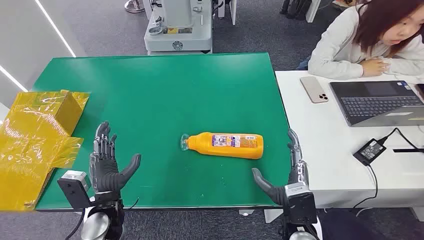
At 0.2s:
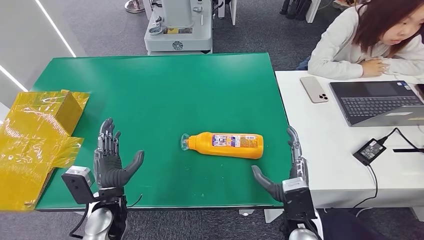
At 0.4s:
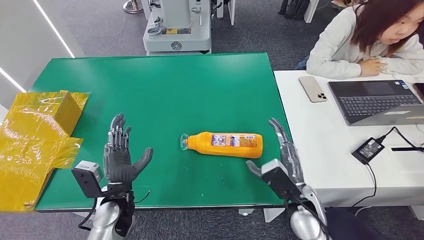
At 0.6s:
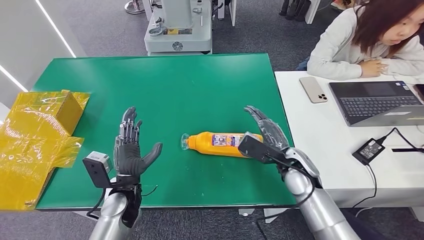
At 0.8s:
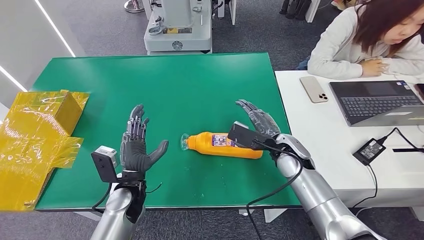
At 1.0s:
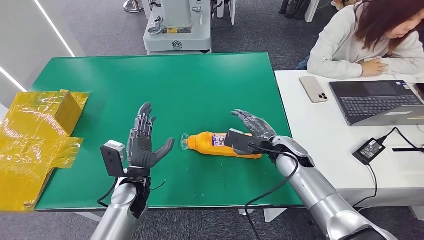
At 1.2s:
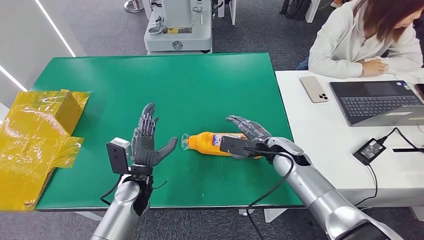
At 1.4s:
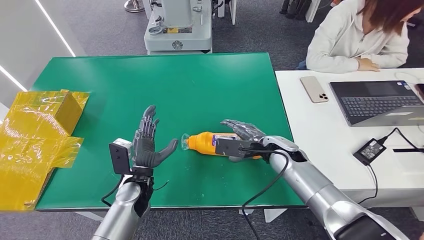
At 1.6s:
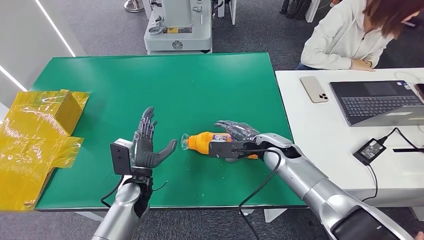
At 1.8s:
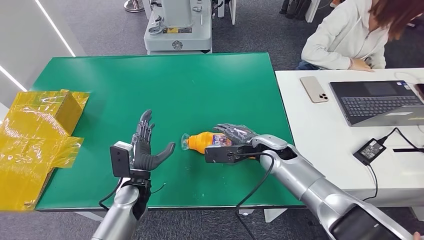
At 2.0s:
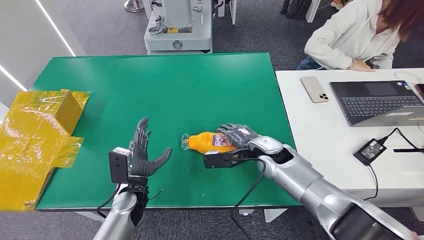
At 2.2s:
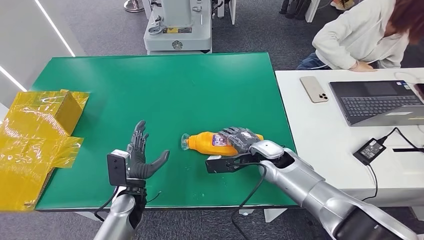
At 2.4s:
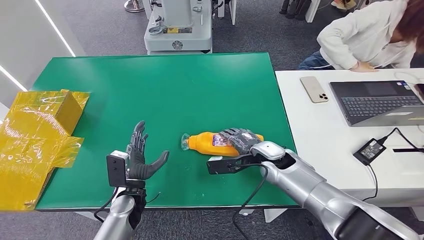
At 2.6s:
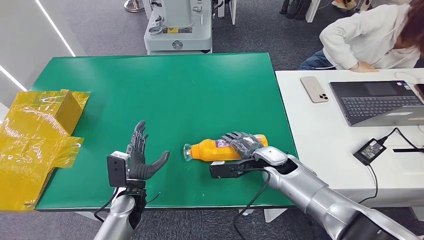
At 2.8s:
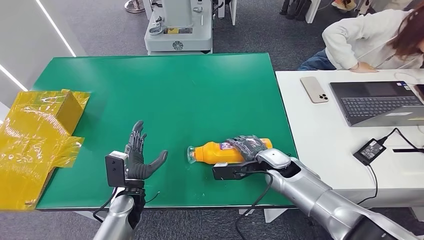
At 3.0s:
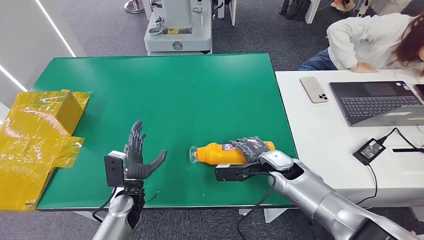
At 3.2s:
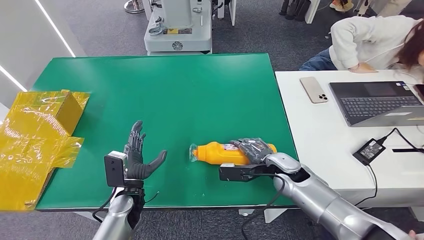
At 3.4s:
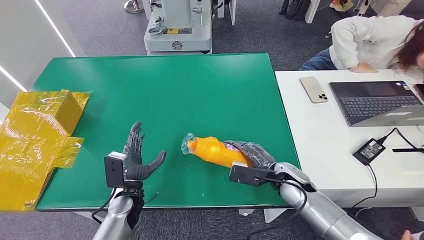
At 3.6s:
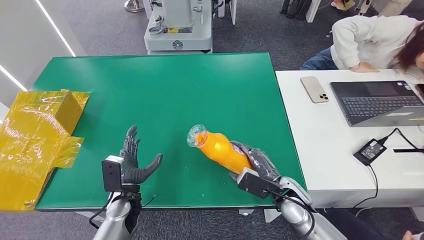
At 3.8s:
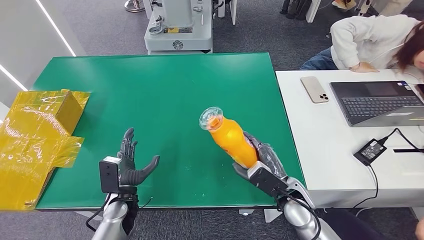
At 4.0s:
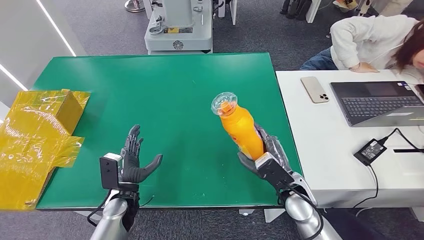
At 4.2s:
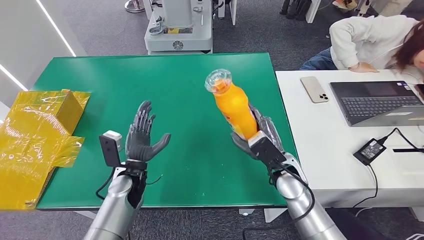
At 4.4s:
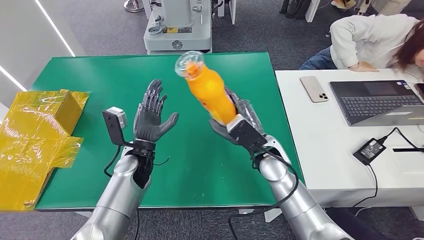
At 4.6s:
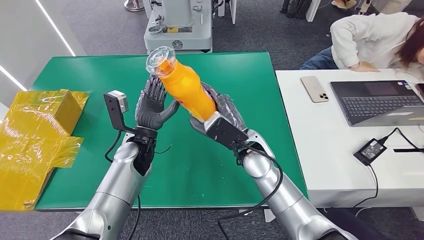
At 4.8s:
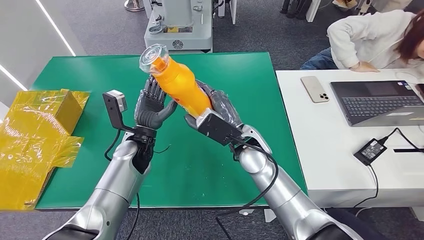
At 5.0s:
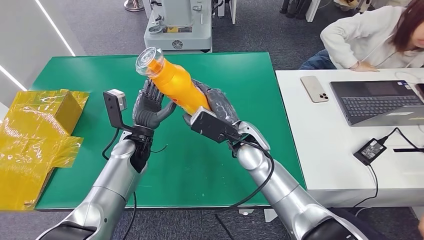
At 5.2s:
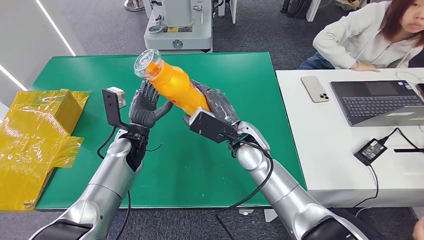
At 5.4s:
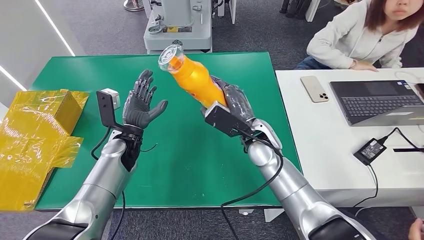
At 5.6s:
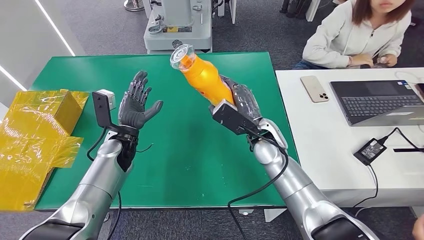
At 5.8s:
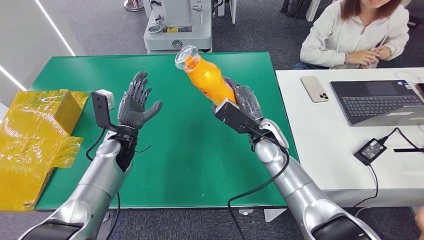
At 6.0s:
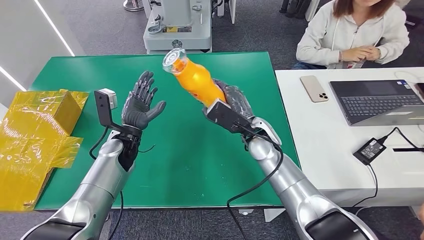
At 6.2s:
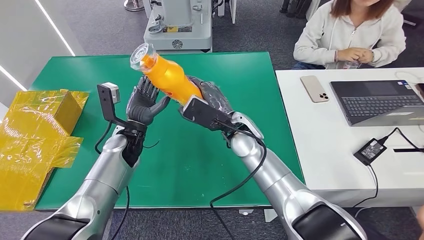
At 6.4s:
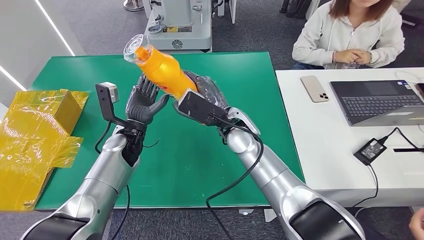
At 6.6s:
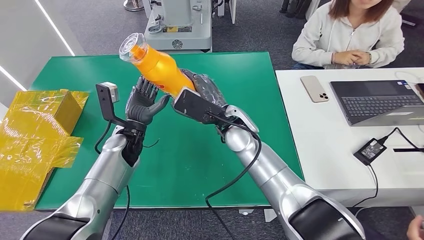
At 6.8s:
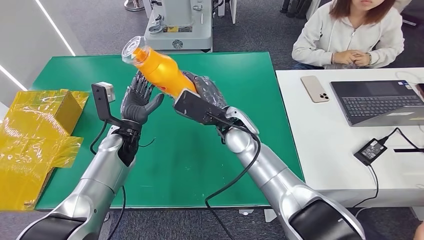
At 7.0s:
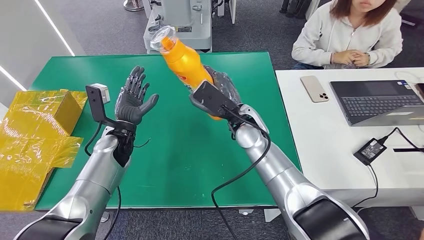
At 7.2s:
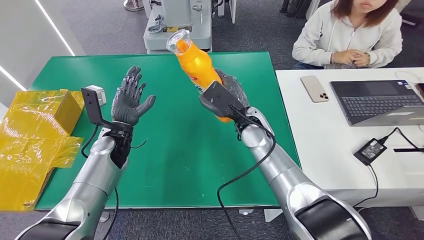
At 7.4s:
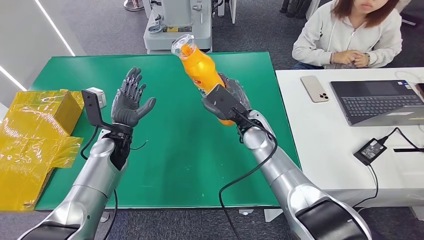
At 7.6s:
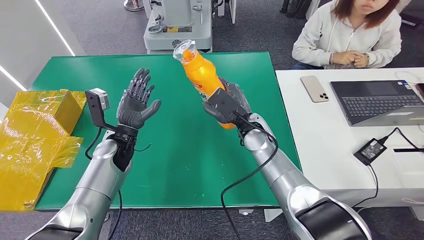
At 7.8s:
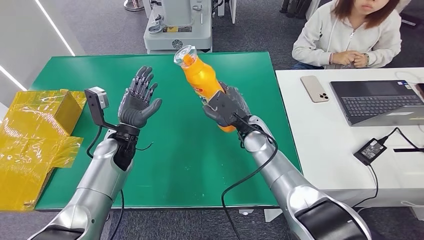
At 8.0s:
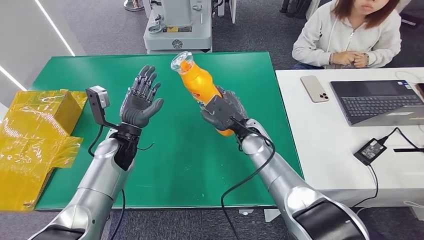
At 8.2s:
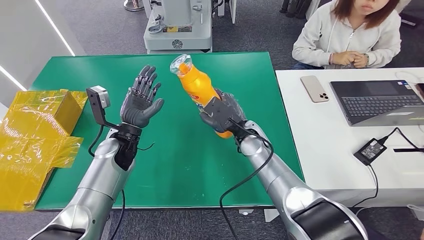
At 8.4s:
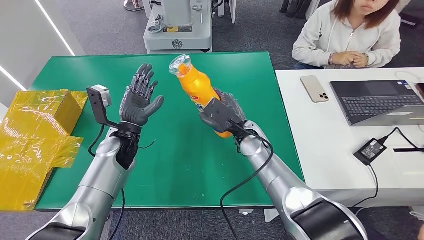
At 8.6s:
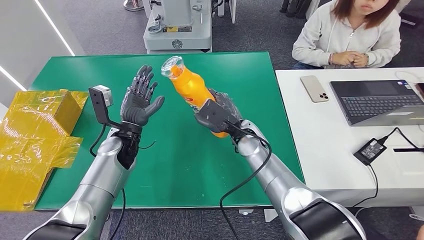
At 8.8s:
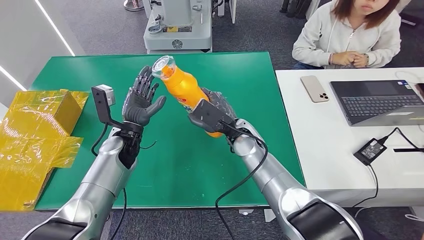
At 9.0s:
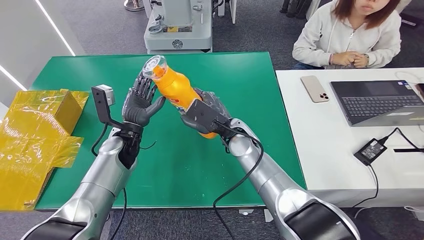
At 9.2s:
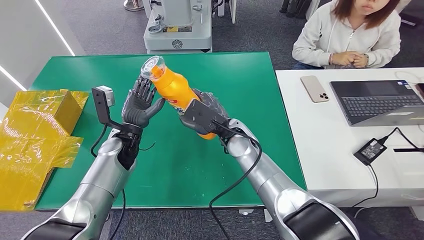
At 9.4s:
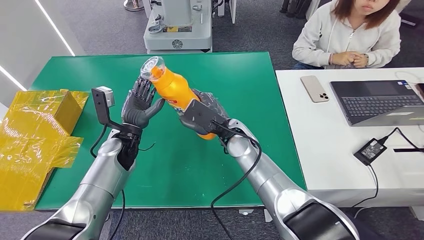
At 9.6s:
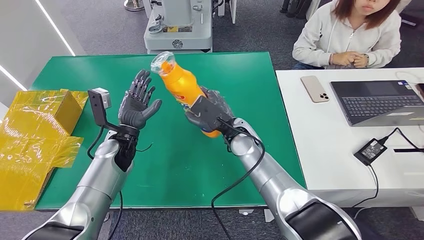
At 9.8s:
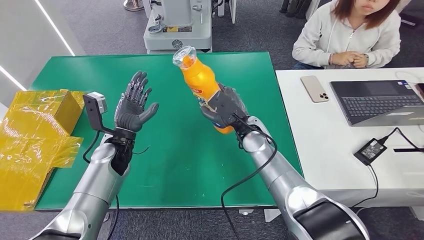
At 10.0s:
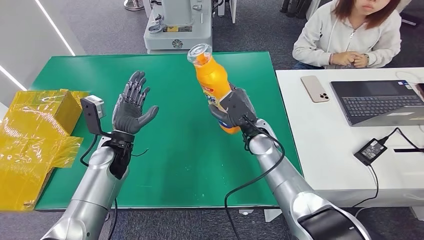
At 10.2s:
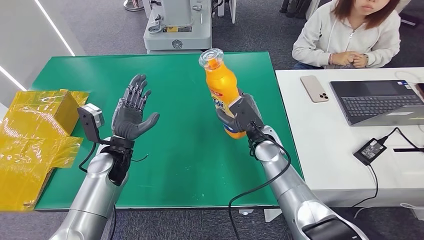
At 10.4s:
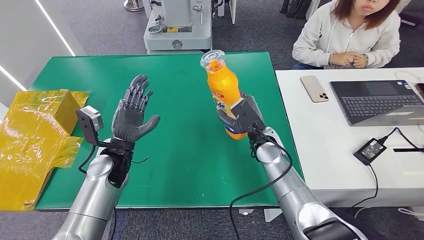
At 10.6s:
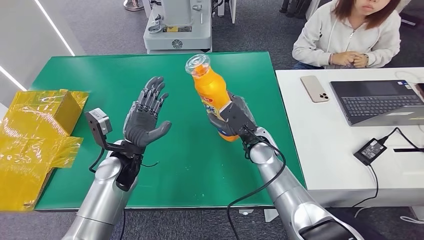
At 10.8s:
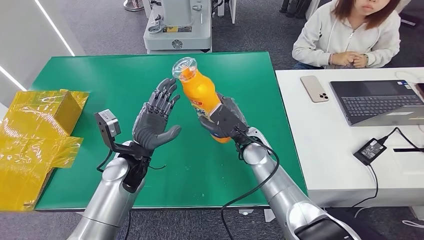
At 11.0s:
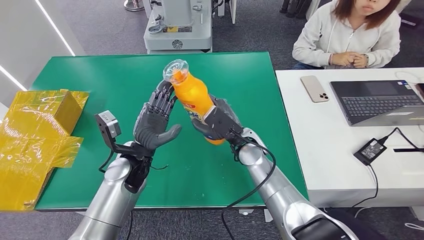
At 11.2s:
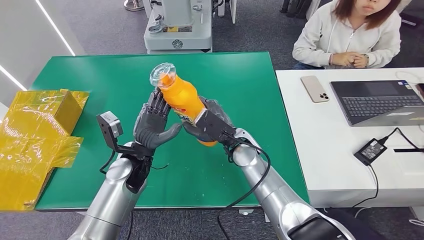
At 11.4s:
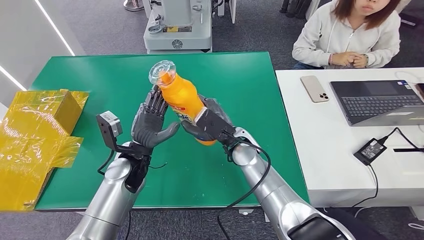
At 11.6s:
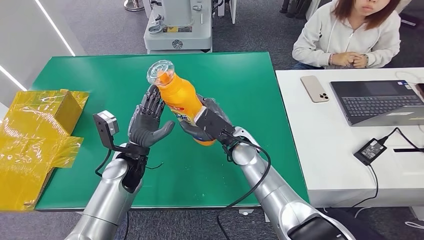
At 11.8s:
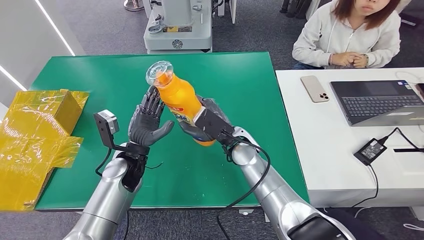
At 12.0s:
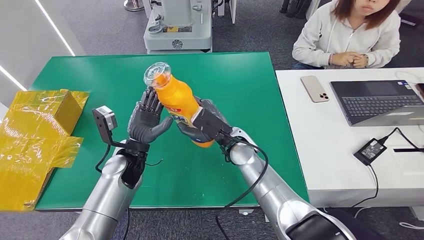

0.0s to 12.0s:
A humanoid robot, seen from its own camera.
Step, 0.0s to 4.4s: Pick up the bottle from the table.
1.6s to 3.0s: The right hand ends up some 5 cm from where it was.
7.6s to 9.0s: The hands move only a little.
9.0s to 10.4s: The right hand moves to the right, roughly 5 cm.
10.4s to 12.0s: The right hand travels to the left by approximately 5 cm.

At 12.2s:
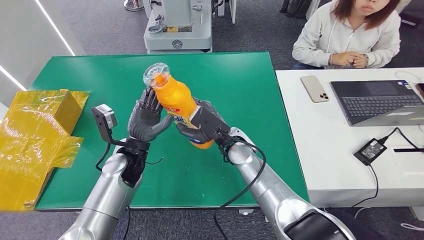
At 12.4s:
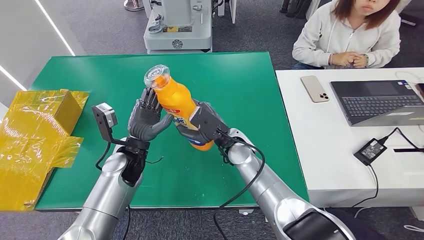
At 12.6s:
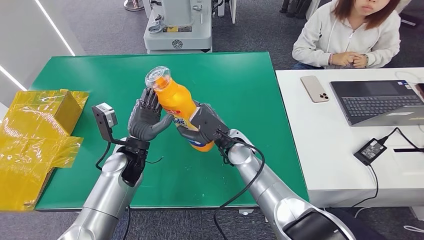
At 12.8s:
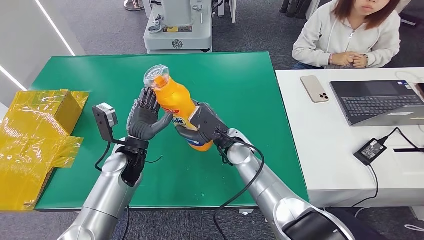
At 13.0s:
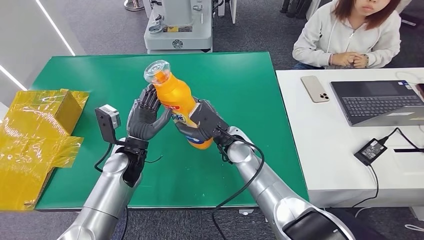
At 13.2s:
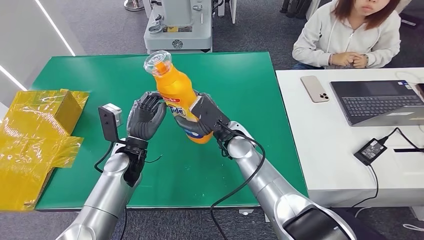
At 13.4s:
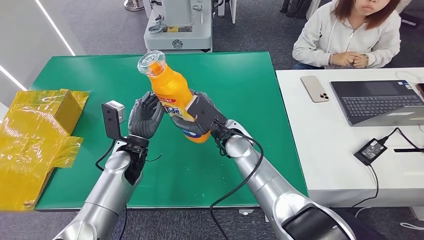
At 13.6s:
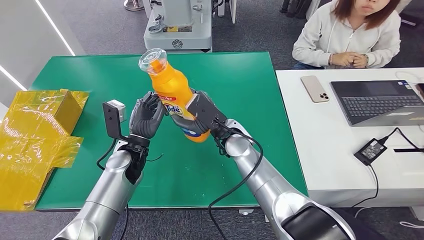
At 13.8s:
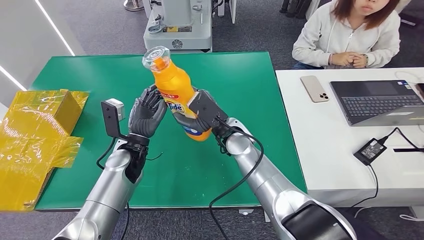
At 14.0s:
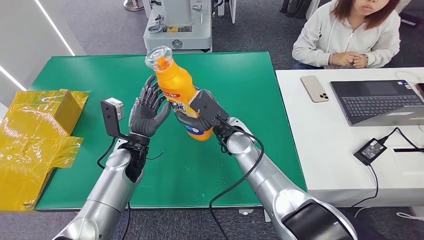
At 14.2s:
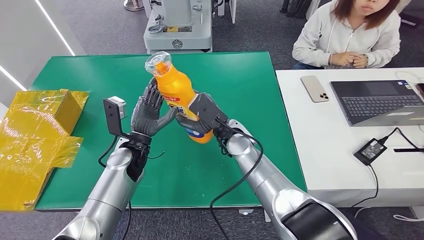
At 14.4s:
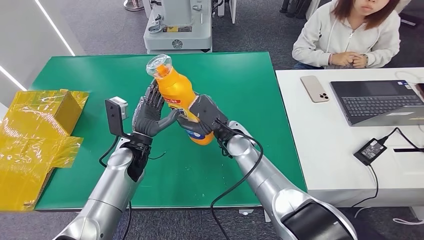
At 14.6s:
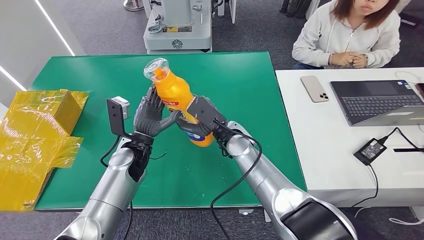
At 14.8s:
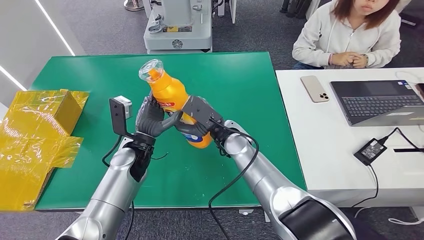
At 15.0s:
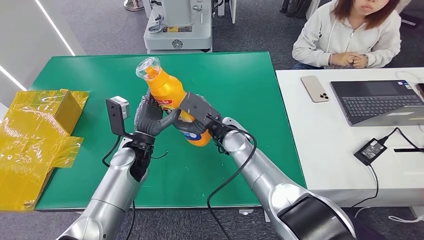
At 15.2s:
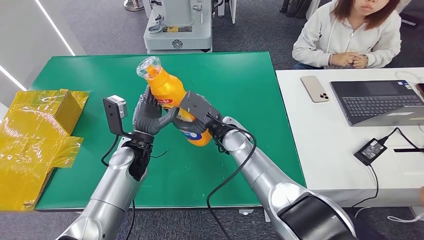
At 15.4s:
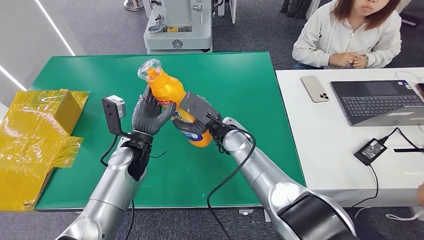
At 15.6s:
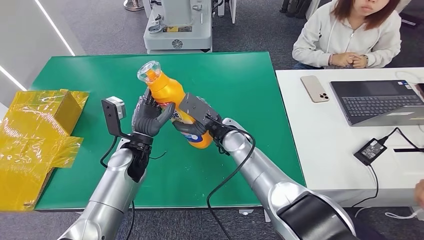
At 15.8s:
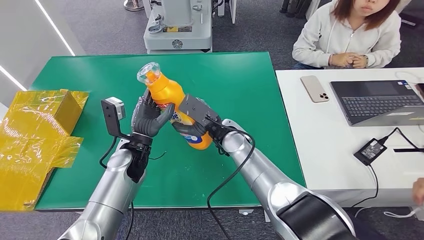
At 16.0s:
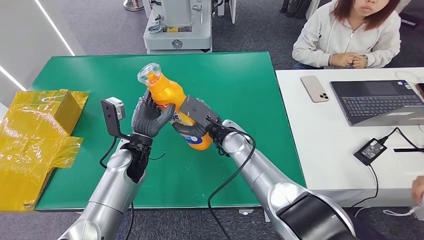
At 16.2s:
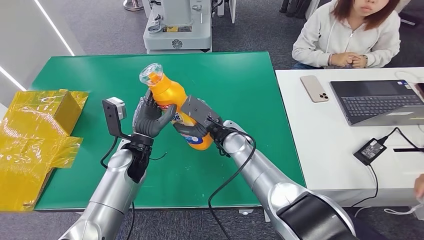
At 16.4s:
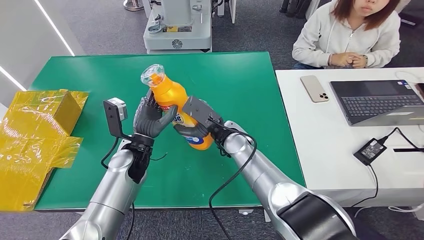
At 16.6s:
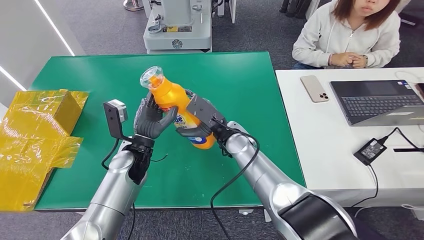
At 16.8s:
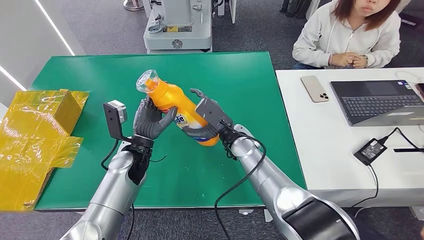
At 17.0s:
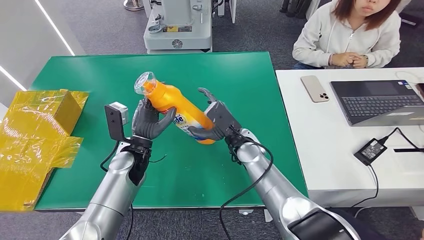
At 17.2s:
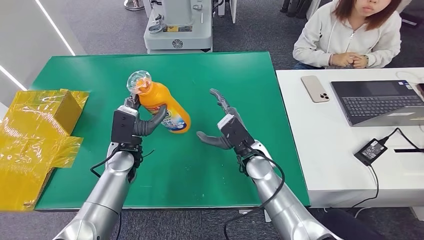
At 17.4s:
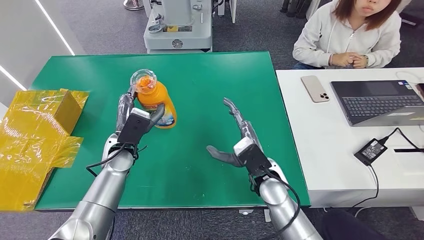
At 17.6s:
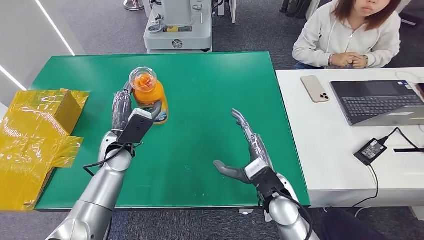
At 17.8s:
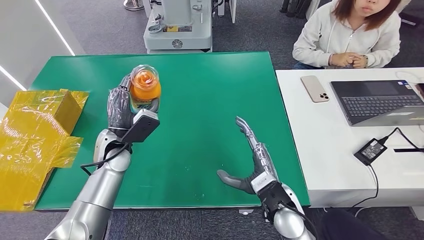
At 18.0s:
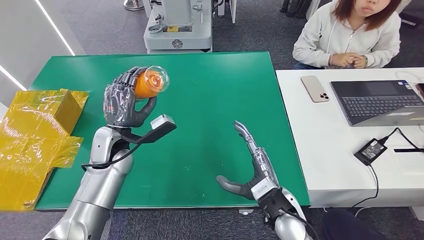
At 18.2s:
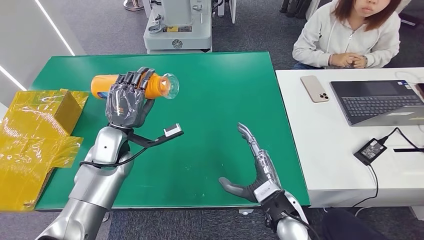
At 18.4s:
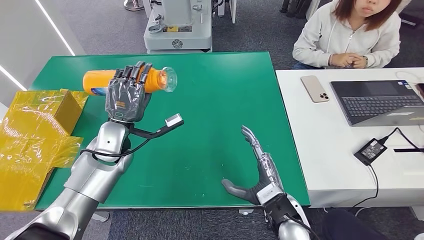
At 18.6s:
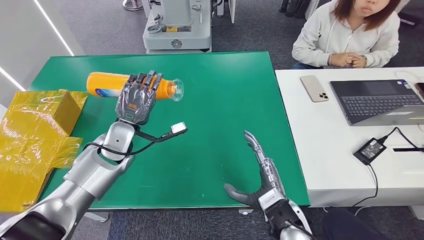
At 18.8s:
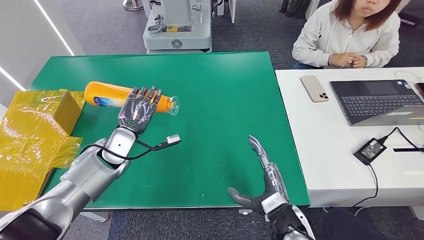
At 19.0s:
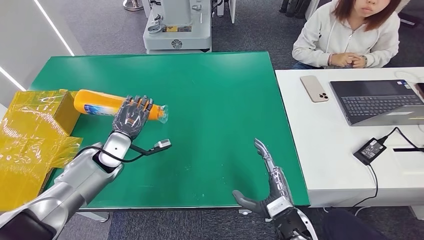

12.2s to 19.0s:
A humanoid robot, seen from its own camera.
12.2s to 16.2s: The hands make only small movements.
16.2s to 17.6s: The right hand travels backward and to the right by roughly 15 cm.
17.6s to 19.0s: The left hand travels to the left by approximately 5 cm. The right hand shifts approximately 10 cm backward.
